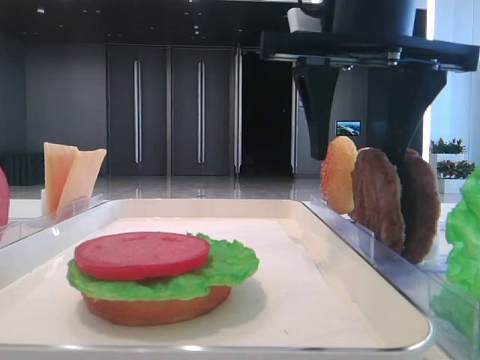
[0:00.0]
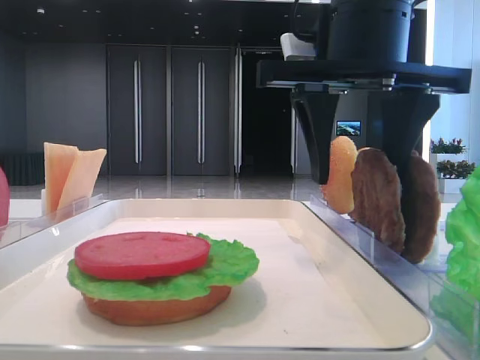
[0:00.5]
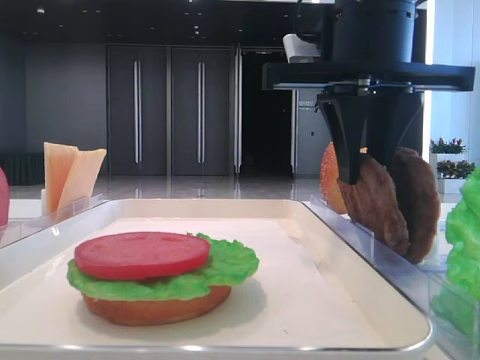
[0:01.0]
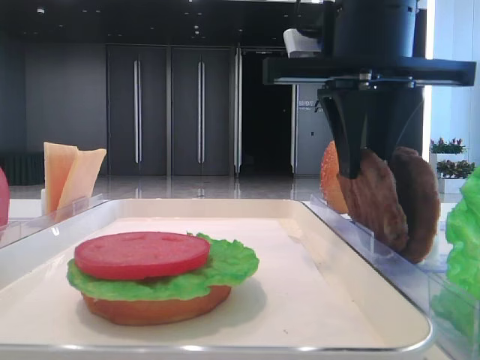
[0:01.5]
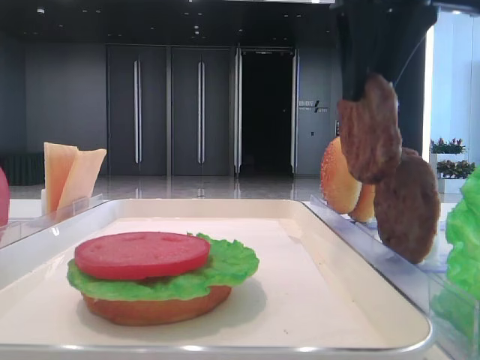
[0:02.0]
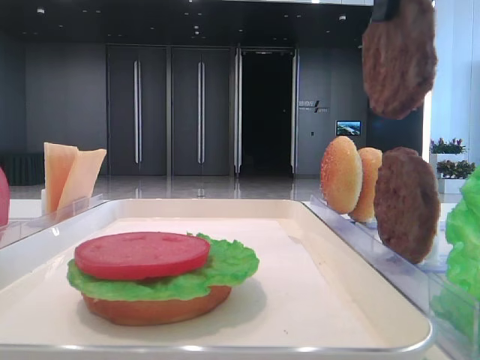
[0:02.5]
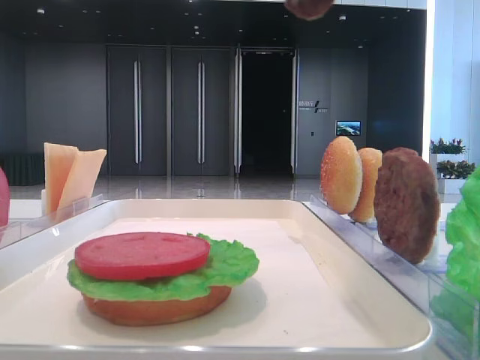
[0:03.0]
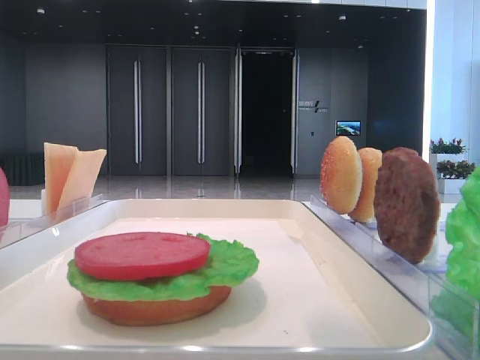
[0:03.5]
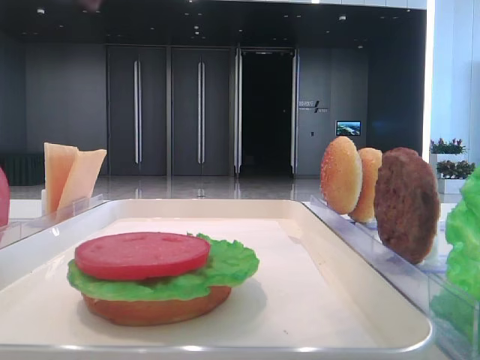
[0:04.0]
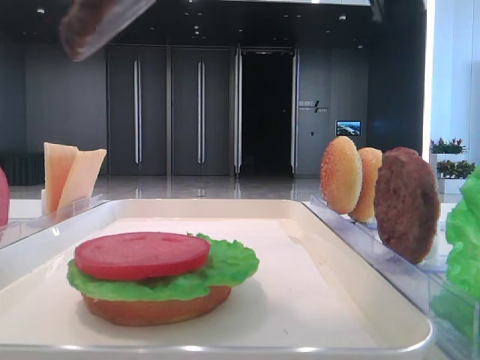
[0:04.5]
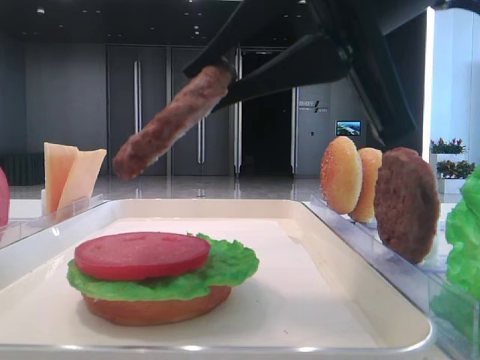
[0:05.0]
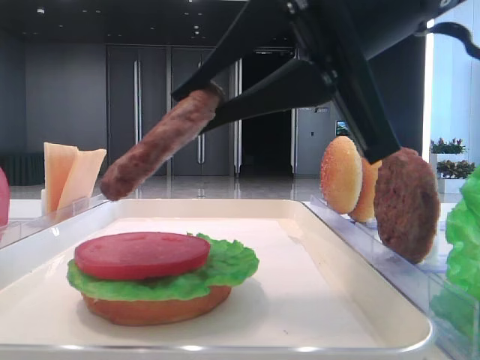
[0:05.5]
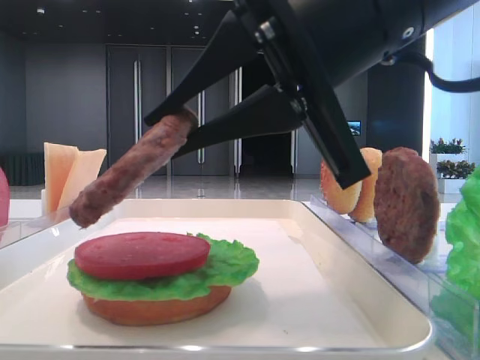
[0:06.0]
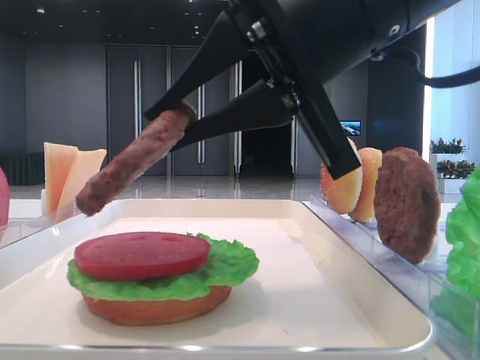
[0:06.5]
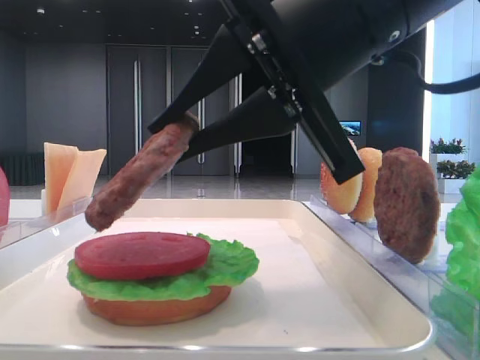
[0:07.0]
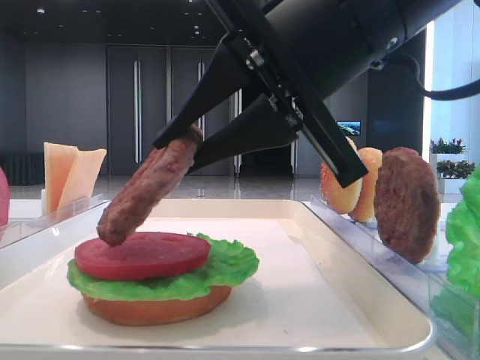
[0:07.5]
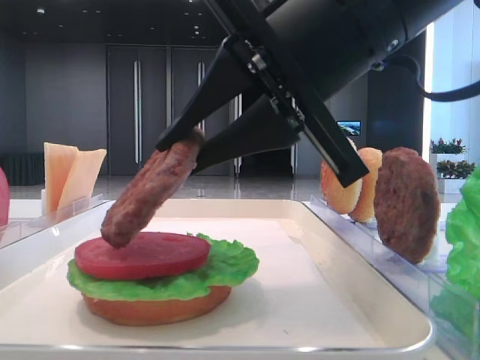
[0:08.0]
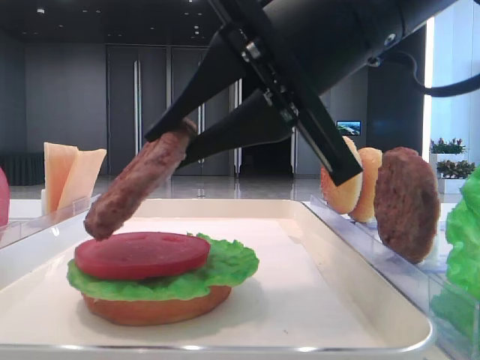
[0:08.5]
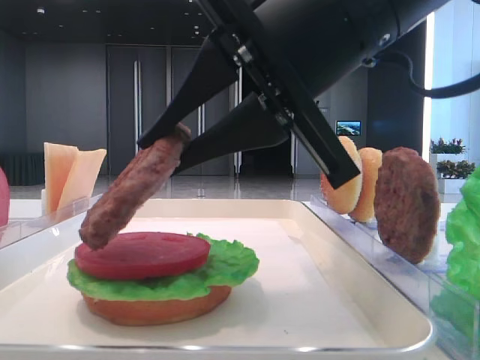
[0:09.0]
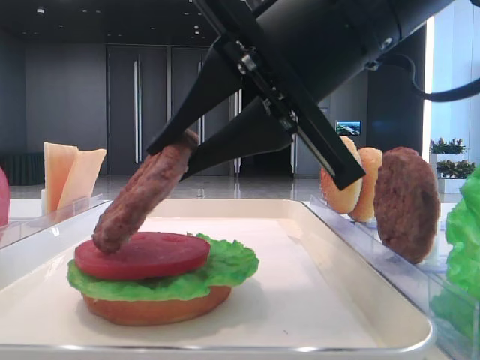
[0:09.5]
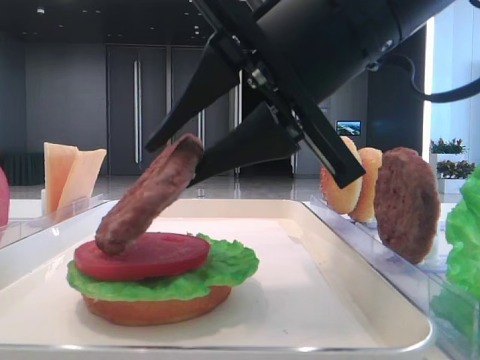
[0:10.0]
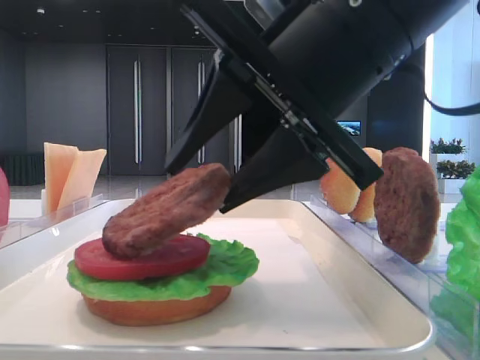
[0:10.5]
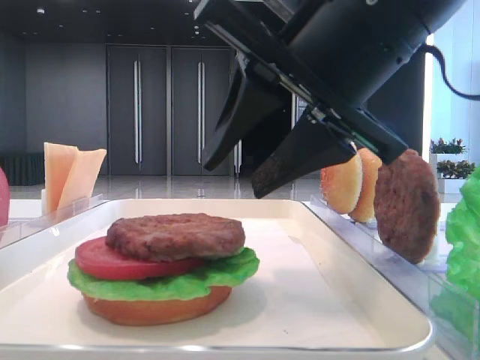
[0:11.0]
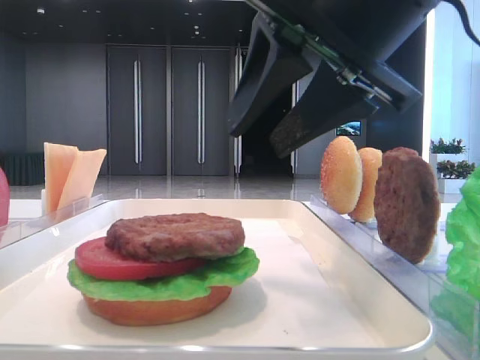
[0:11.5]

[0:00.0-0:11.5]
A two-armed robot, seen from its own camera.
Step, 0:01.5 to 0:11.0: Place the patty on the tomato slice with the right hand.
0:00.0 to 0:02.0: The right gripper closes up.
0:02.0 to 0:04.0: The right gripper moves backward, upward and to the left, some 15 cm.
0:04.0 to 0:06.0: The right gripper shifts about 15 cm downward and forward.
0:06.0 to 0:07.5: The grippers make only small movements.
0:07.5 to 0:09.5: Both grippers stay put.
0:09.5 to 0:11.5: The right gripper opens.

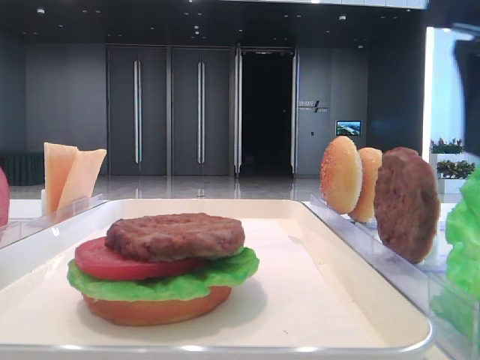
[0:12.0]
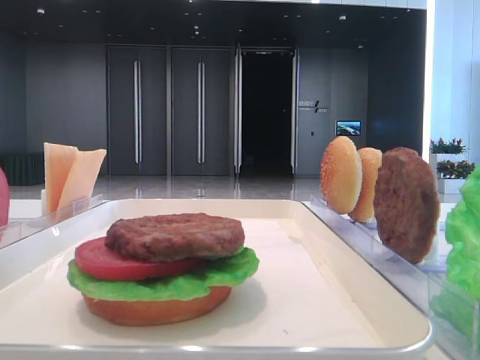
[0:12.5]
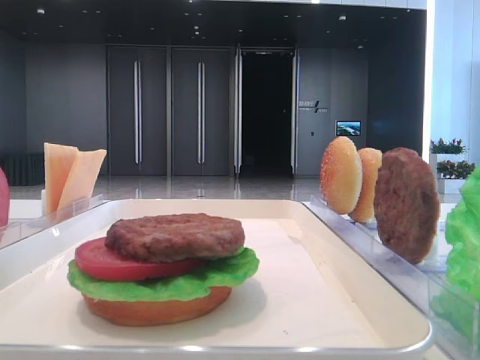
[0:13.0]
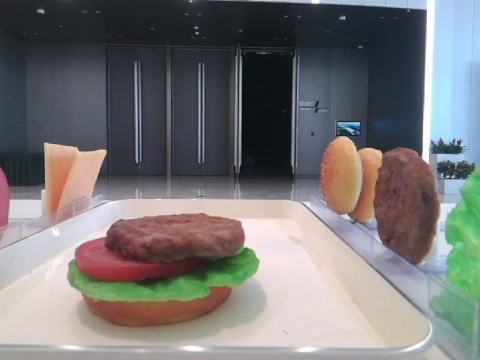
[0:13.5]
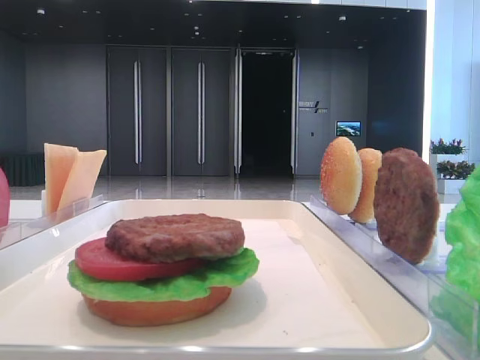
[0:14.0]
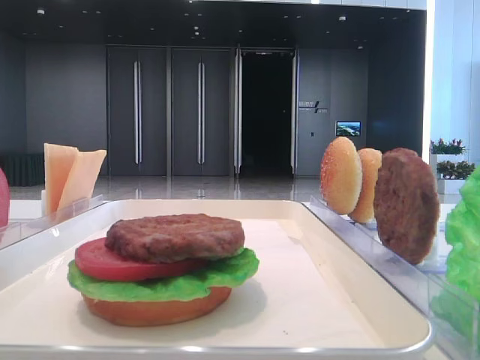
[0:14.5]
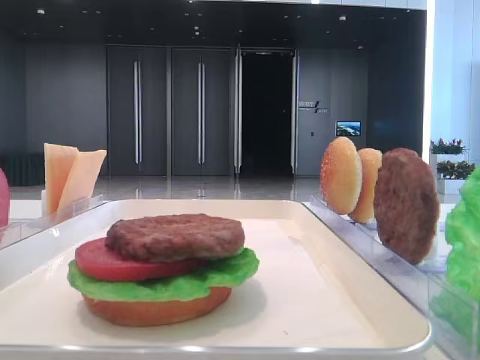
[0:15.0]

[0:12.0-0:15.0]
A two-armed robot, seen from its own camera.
0:12.0 to 0:13.5: The right gripper shifts about 20 cm backward and to the right.

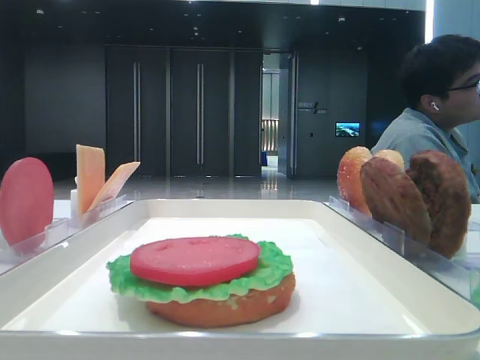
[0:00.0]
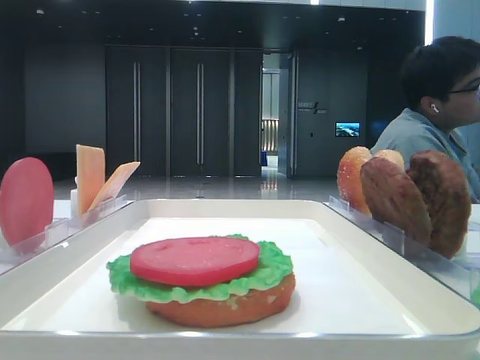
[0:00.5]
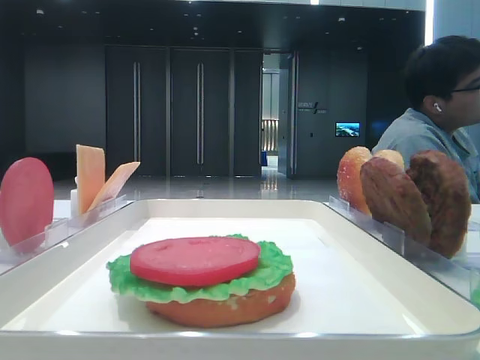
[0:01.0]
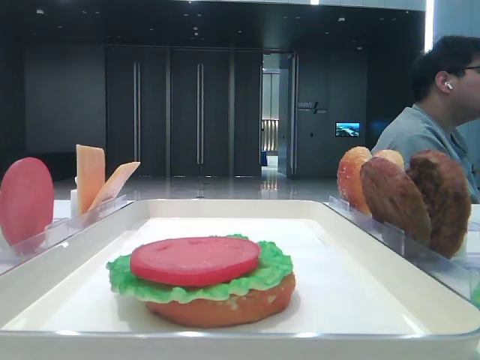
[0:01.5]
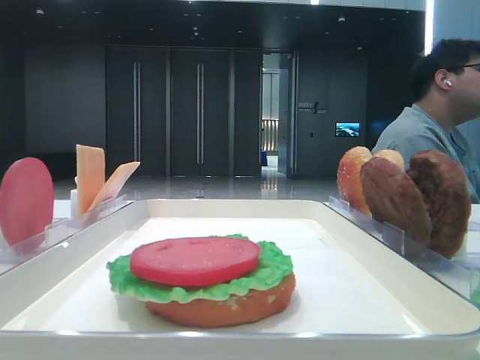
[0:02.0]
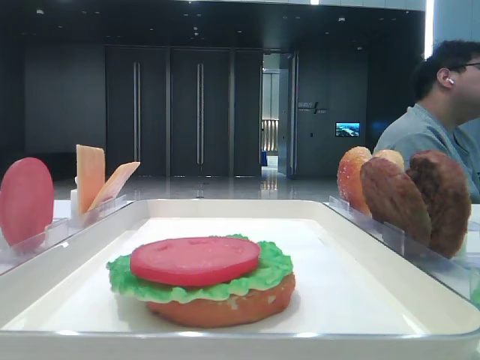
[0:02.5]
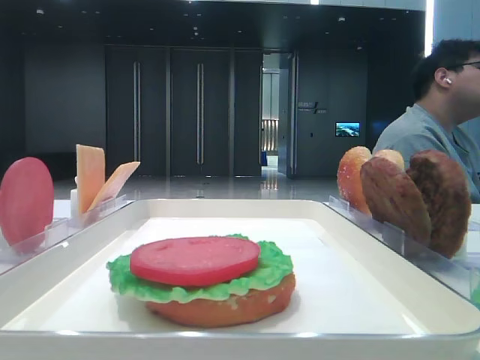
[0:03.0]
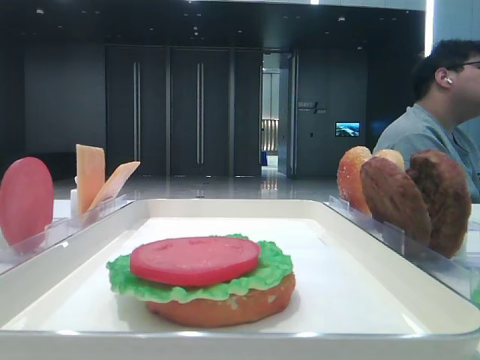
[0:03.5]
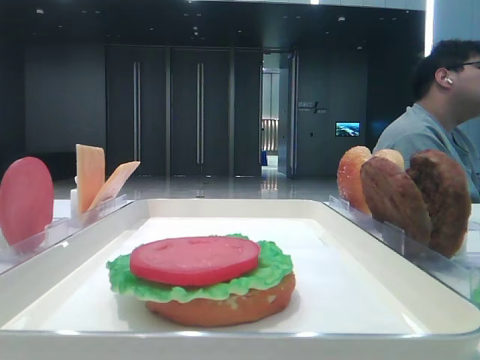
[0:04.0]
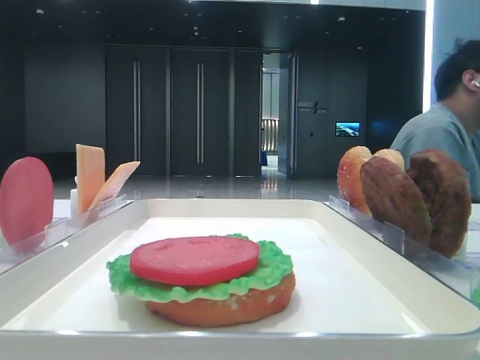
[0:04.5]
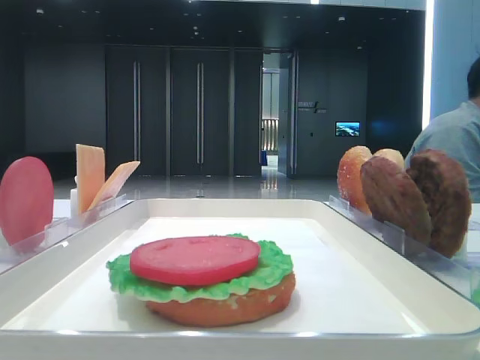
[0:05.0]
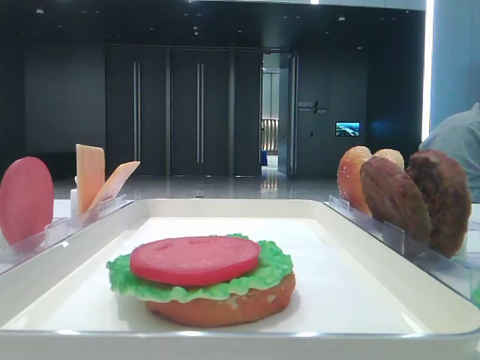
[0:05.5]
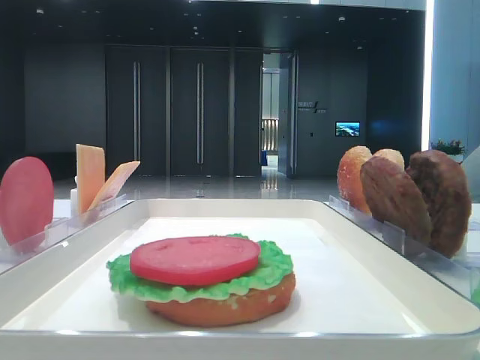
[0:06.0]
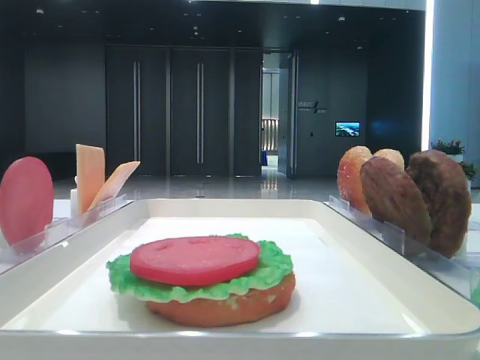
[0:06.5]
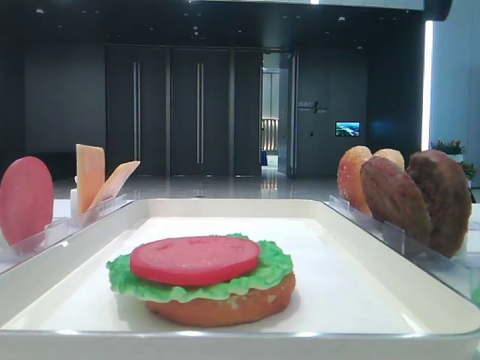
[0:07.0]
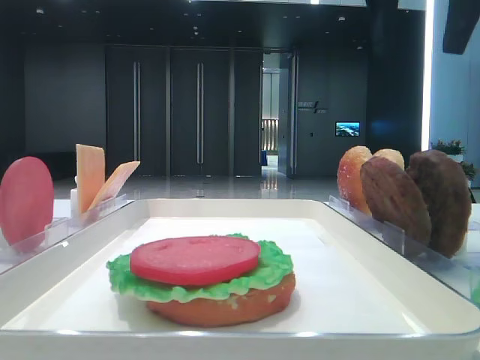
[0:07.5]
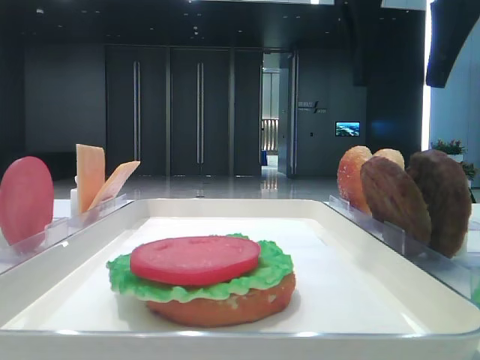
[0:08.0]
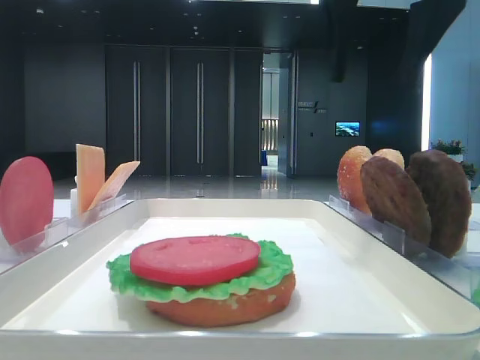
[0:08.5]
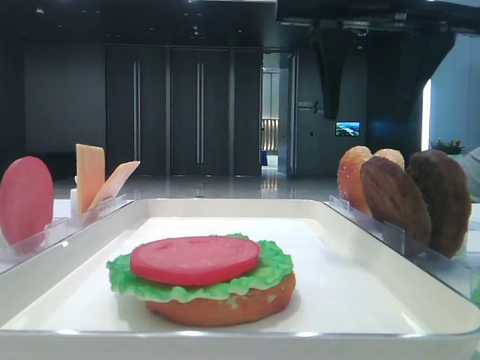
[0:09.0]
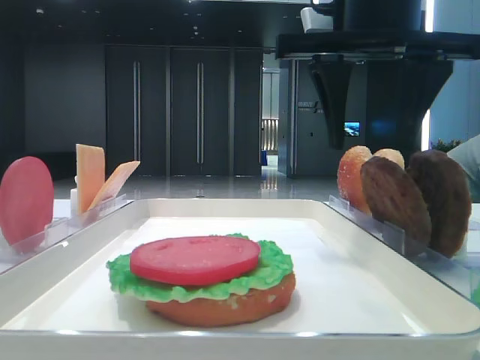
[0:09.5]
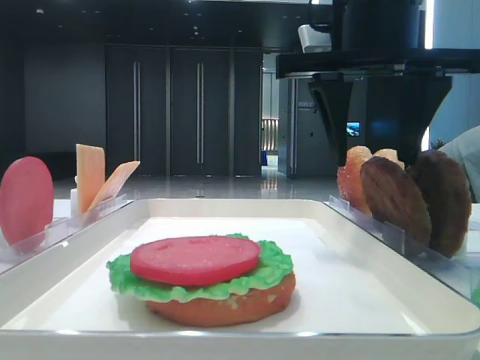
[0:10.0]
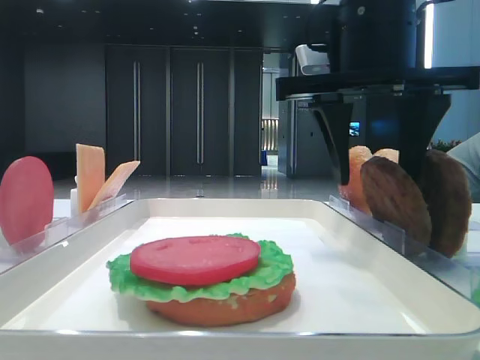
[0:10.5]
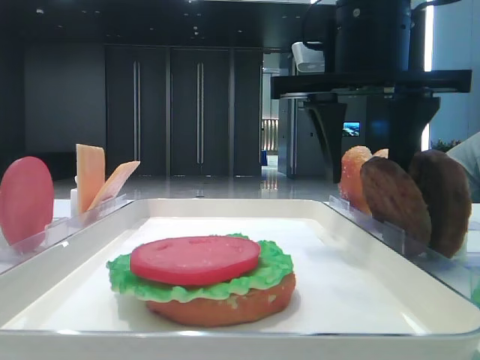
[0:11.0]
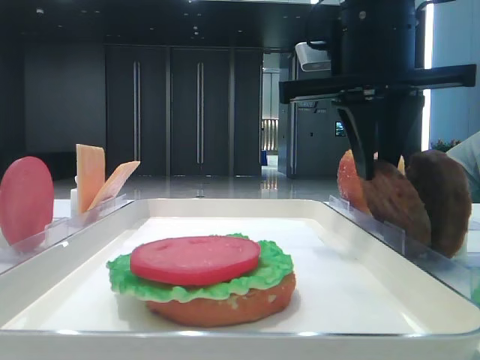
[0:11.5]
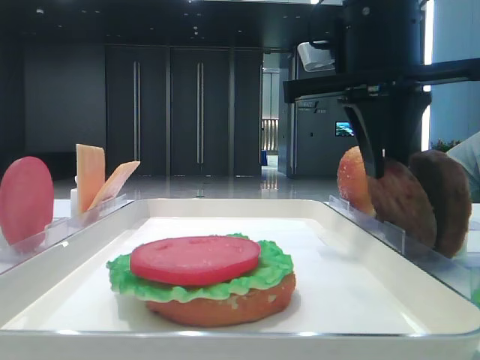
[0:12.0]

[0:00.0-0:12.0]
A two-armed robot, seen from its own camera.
Step, 0:00.0 to 0:11.5: Grab the patty with the right hand.
0:04.0 to 0:06.0: The right gripper travels forward by roughly 5 cm.
0:06.0 to 0:08.0: The right gripper travels to the left by approximately 15 cm.
0:08.0 to 0:10.0: The right gripper heads downward, covering roughly 5 cm.
0:10.0 to 0:12.0: The right gripper closes.
